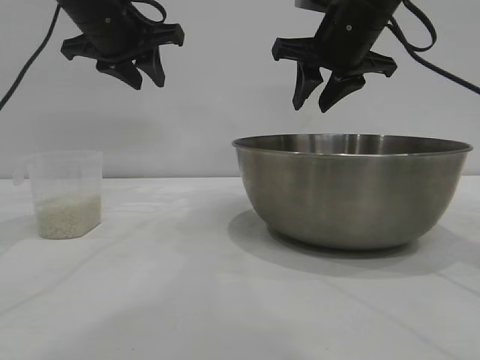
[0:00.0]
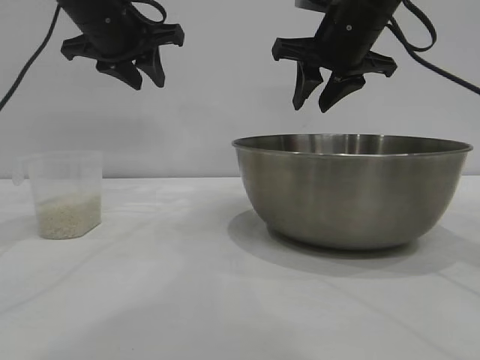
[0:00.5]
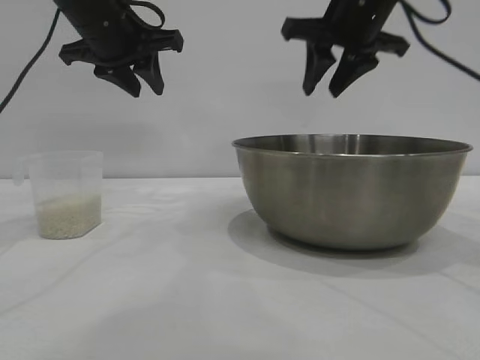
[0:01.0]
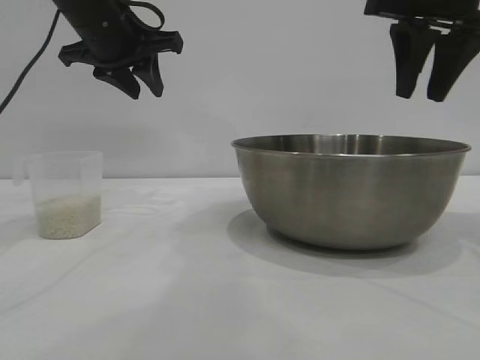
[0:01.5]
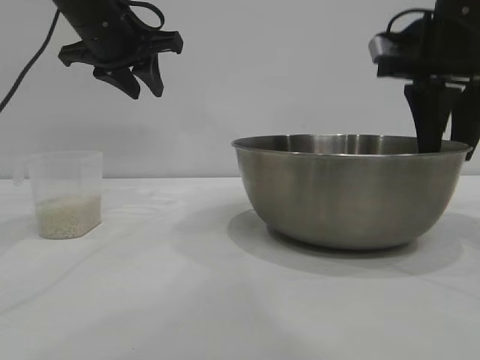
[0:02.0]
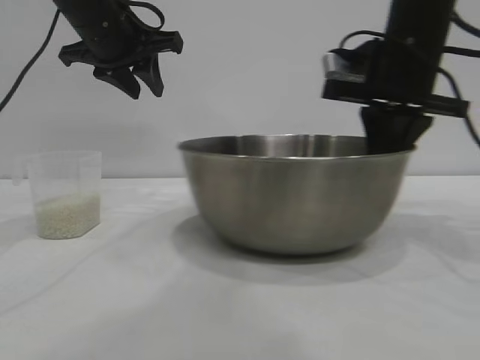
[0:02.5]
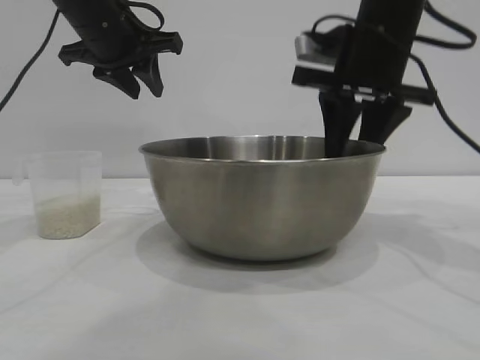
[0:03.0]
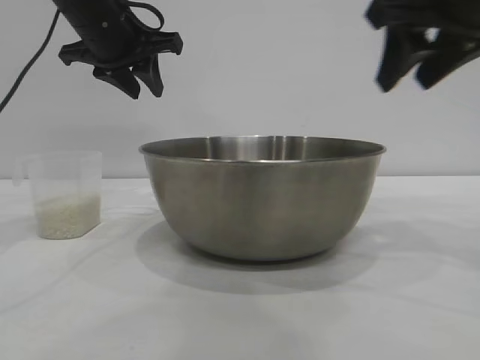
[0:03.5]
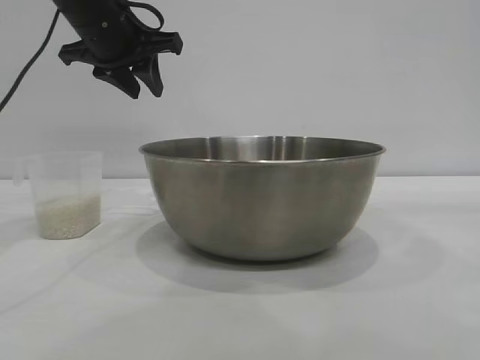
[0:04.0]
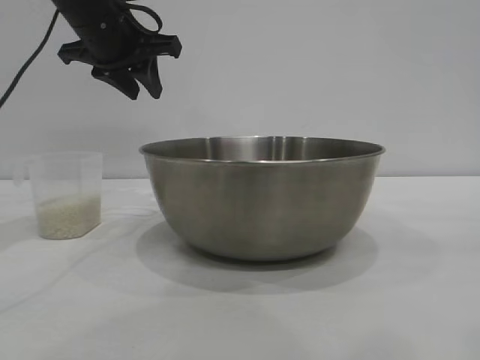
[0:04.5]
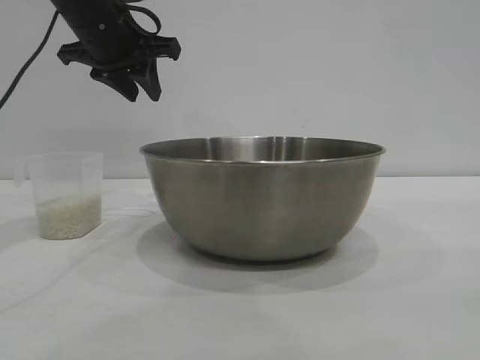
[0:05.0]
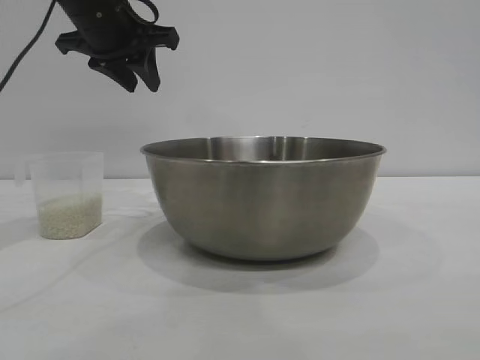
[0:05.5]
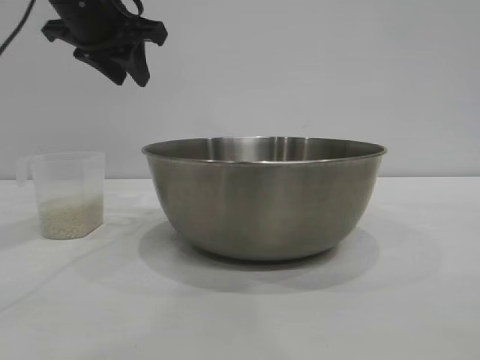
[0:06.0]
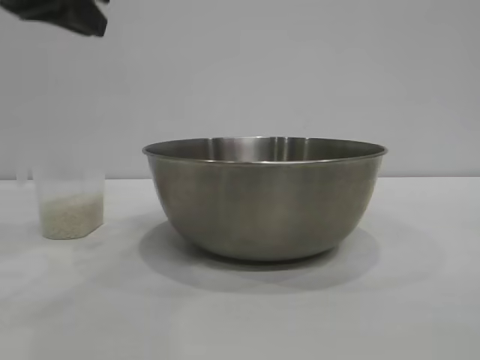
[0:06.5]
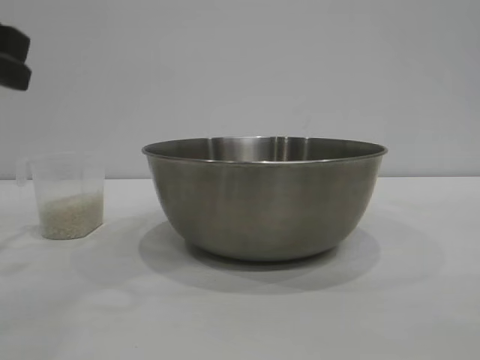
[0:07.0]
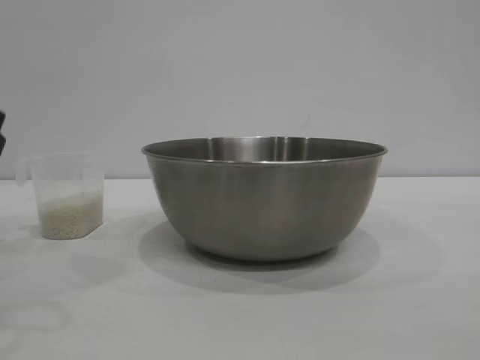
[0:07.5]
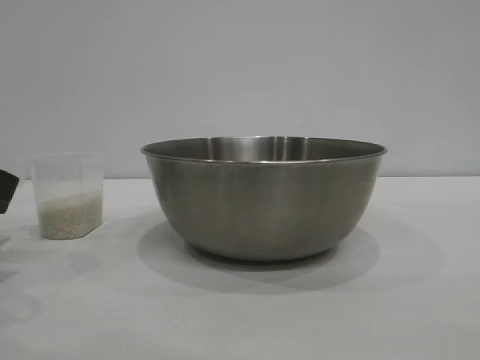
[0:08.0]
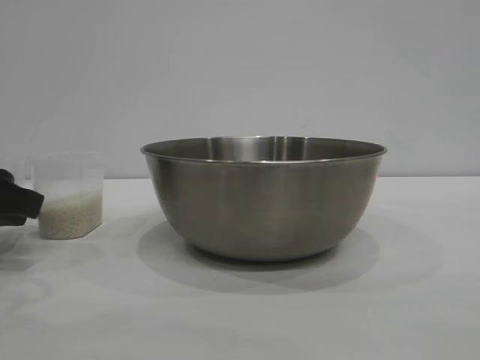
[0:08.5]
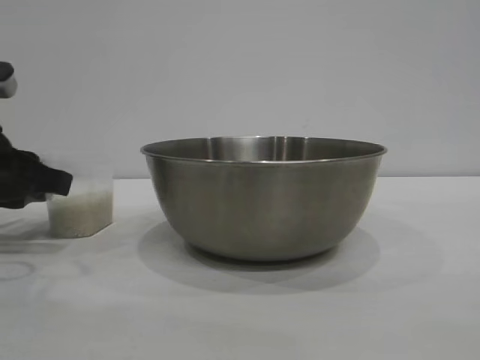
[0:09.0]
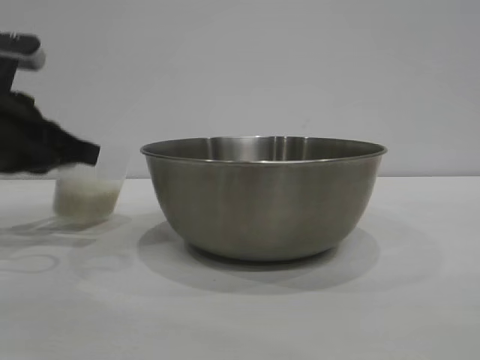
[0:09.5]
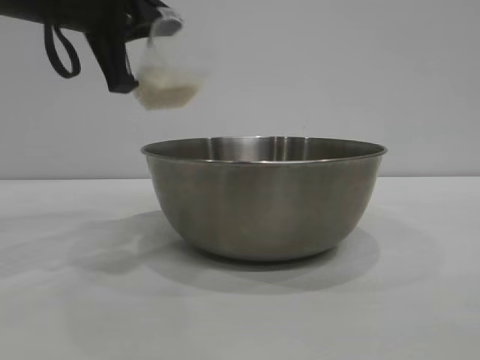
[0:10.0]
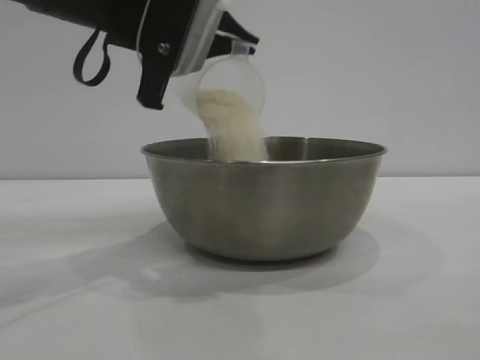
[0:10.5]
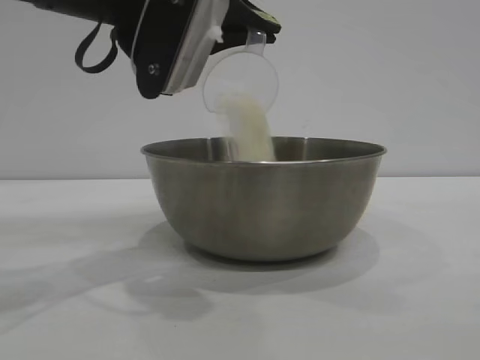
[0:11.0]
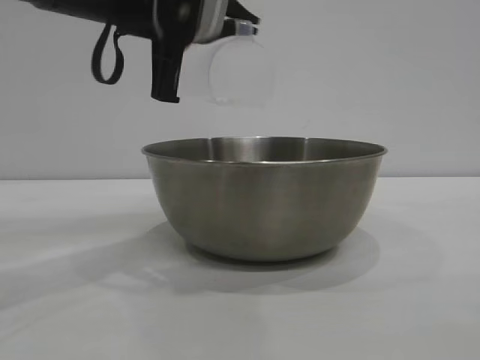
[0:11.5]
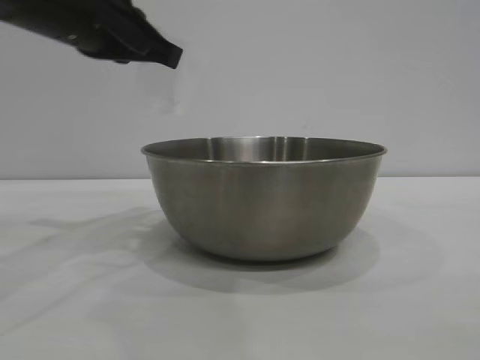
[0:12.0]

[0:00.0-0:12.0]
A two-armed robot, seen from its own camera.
Task of the whole recording: the right gripper grasp the rice container and place it in the center of the table, the left gripper grasp the rice scoop and pour the rice into the rice container.
Step, 0:00.0 to 0:03.0: Move the bowl to the center of view with the right gripper.
Step, 0:03.5 to 0:09.5: Pick up the cup with rice in it with the left gripper.
Step, 0:10.0 to 0:11.5: Pour the rice from the cup into the bowl with the left gripper.

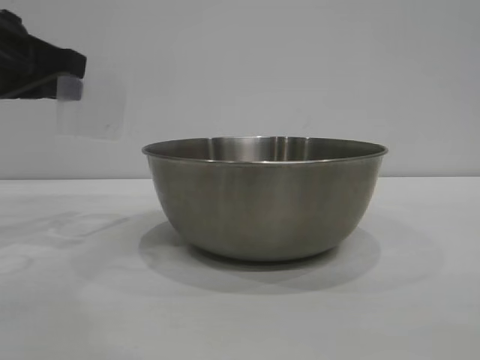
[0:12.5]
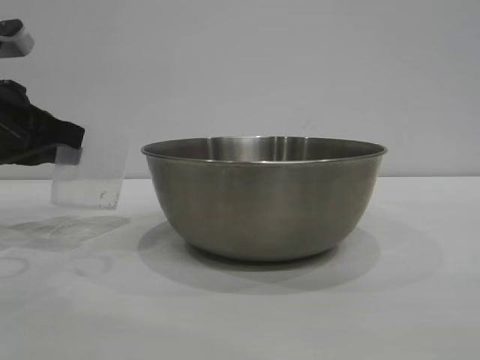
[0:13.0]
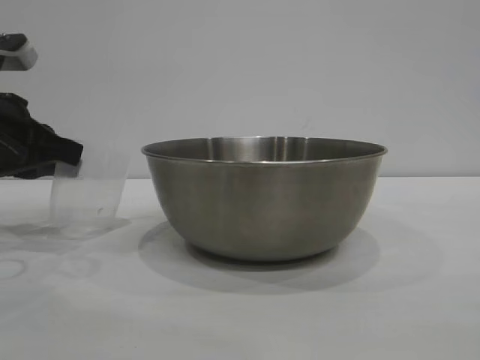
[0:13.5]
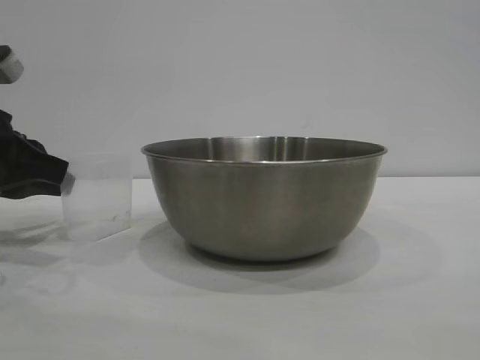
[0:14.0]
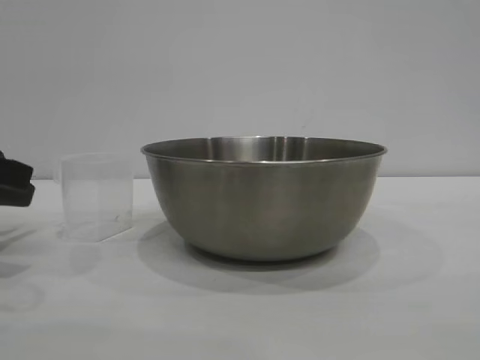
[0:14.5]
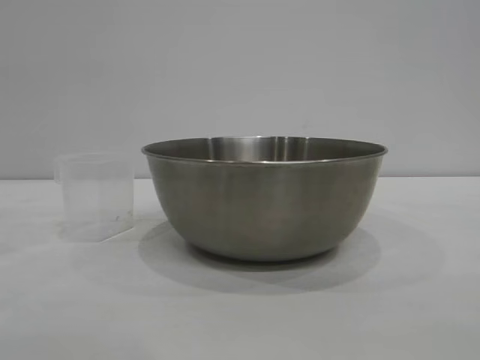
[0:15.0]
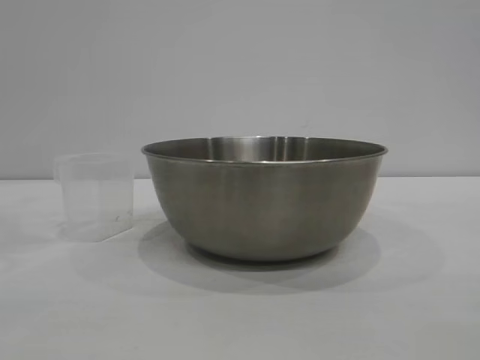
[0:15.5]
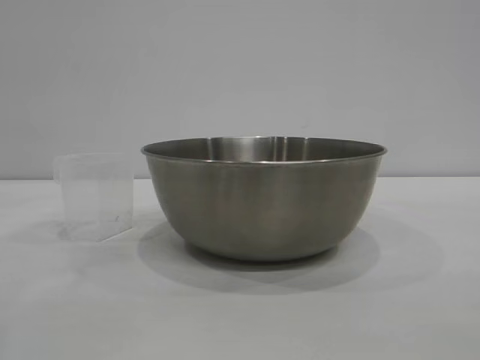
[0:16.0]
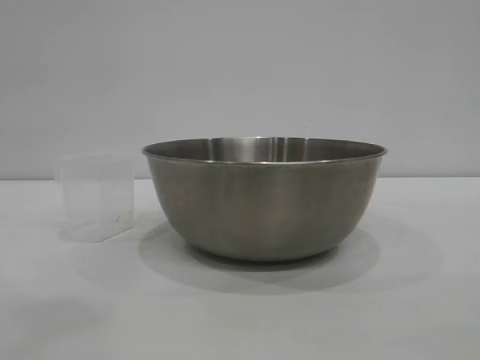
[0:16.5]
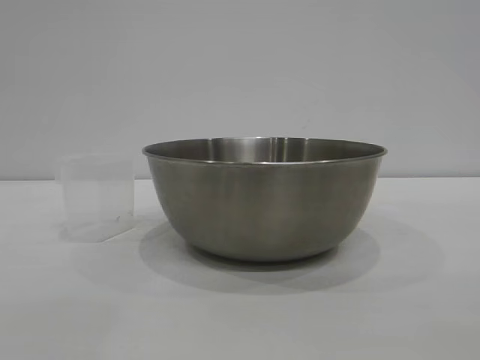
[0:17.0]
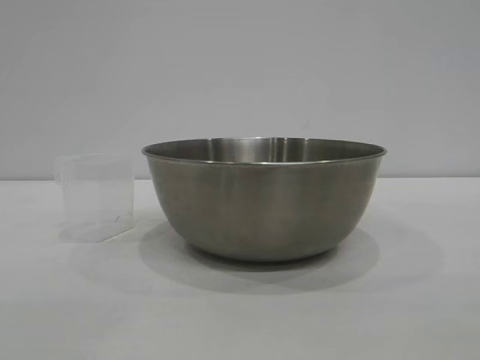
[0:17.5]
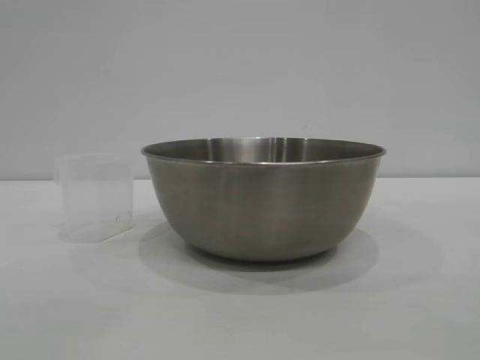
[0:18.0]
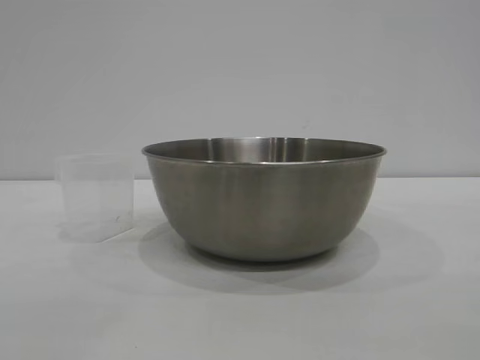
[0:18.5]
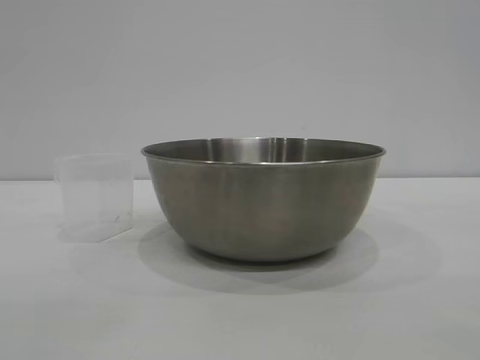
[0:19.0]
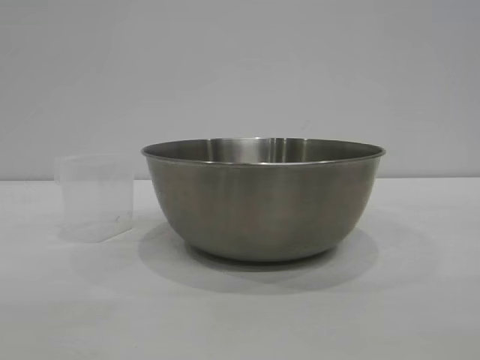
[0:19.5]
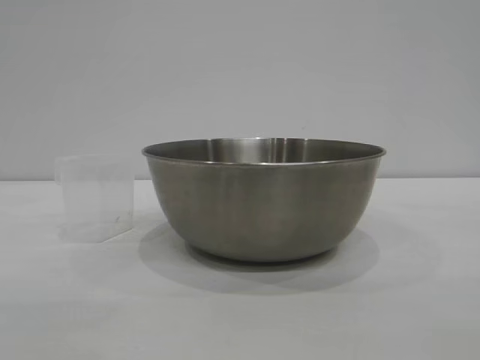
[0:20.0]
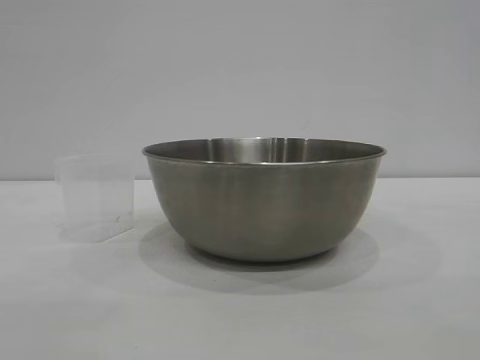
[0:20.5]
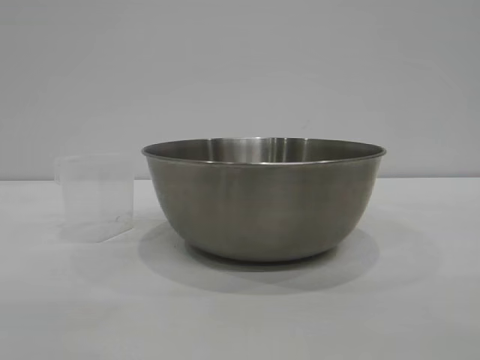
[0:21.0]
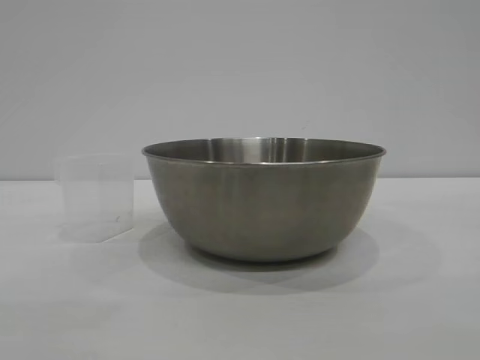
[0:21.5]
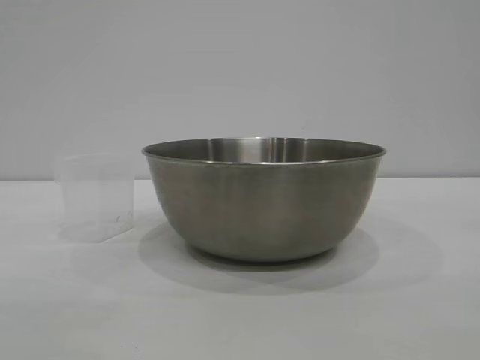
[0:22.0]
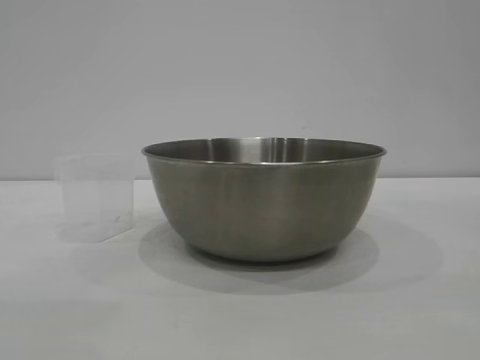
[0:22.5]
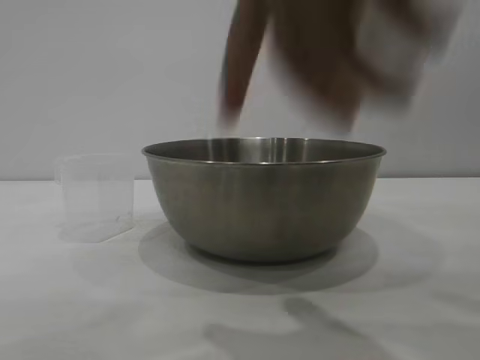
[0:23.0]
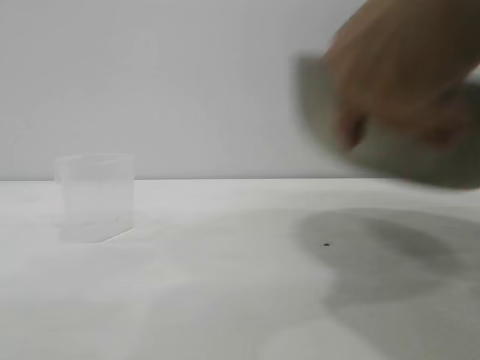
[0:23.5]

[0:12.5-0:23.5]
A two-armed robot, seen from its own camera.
Task of the whole recording: the right gripper grasp the rice container and place it in the center of the table, the left gripper grasp the rice scoop and pour the rice into the rice container.
Step, 0:12.5 to 0:14.5: Place the cup on the table with the left gripper.
